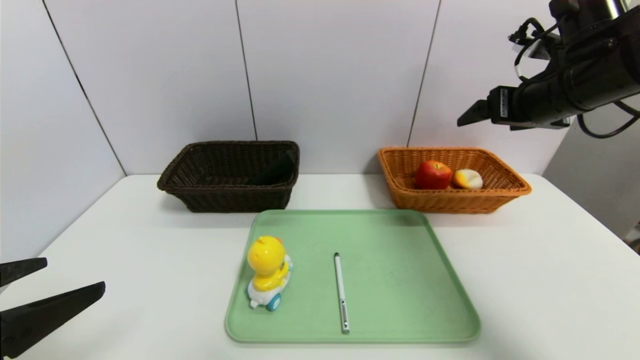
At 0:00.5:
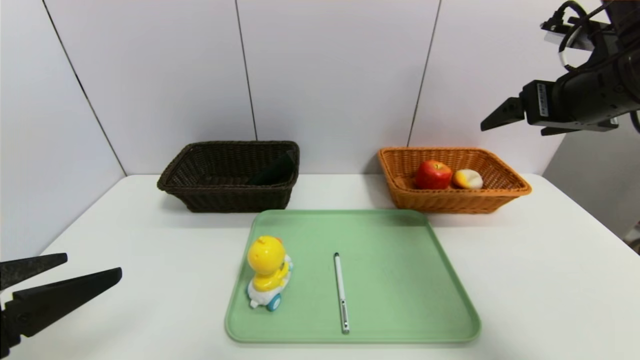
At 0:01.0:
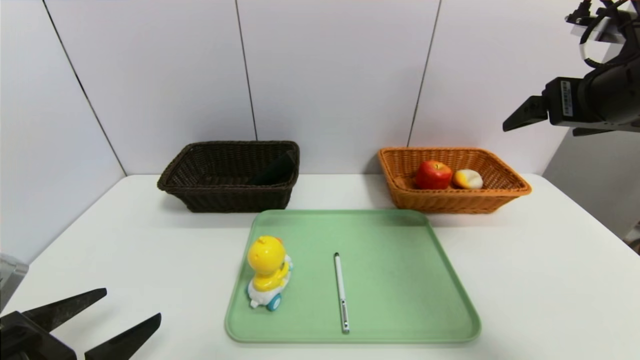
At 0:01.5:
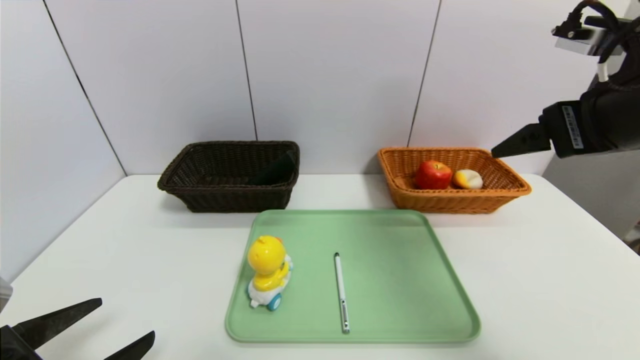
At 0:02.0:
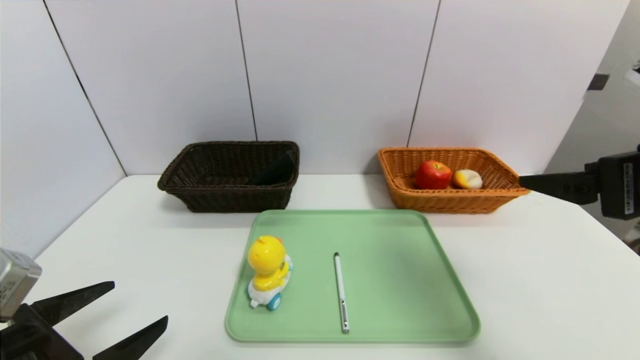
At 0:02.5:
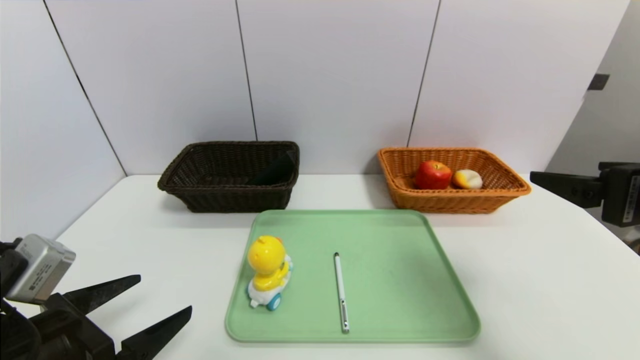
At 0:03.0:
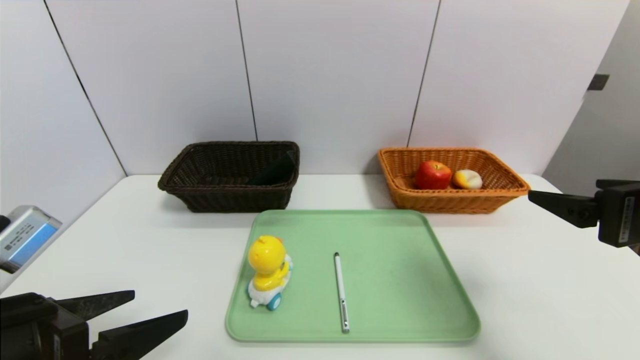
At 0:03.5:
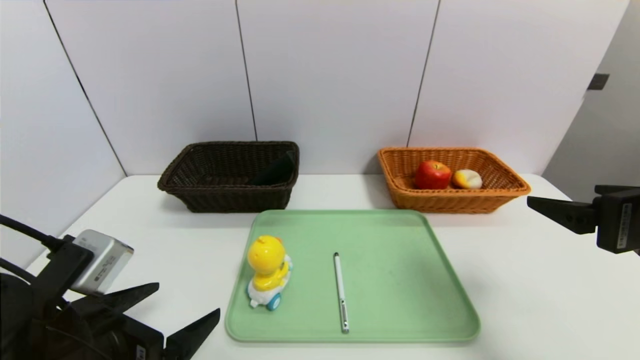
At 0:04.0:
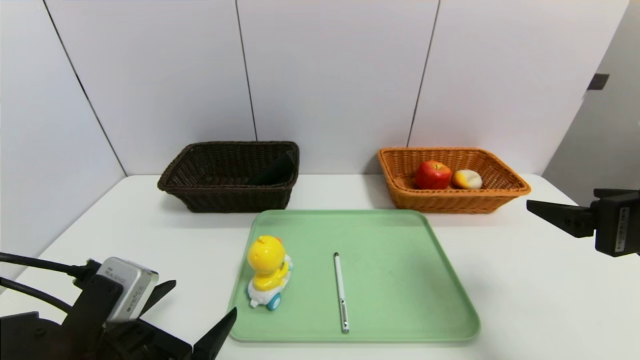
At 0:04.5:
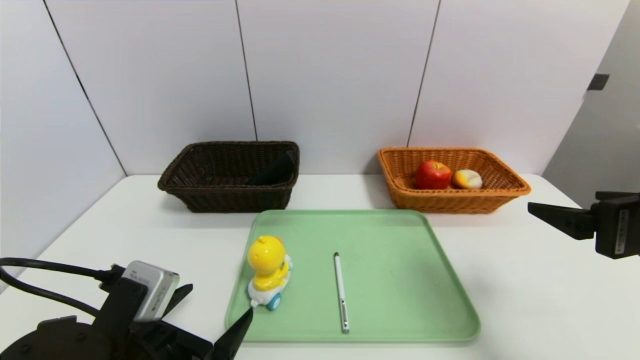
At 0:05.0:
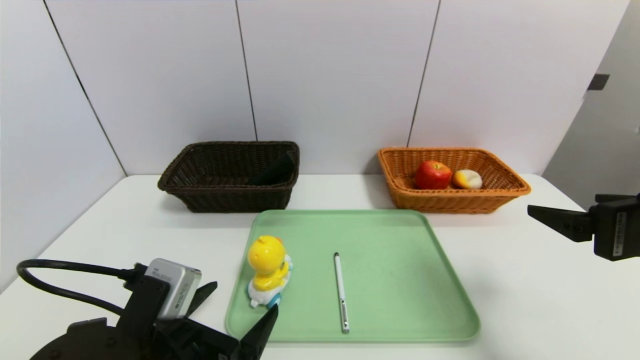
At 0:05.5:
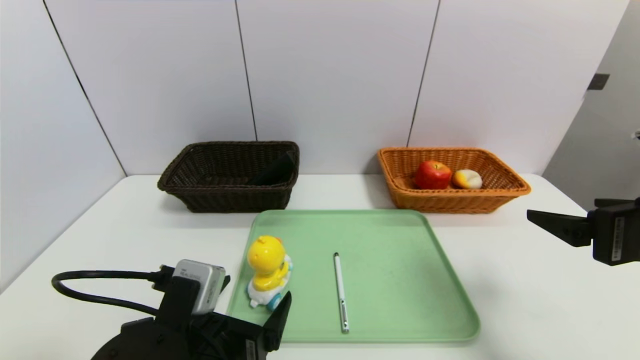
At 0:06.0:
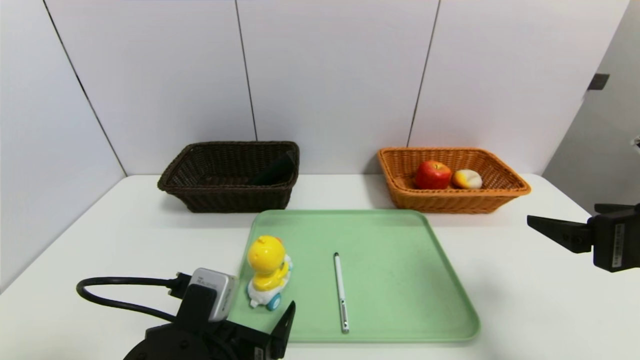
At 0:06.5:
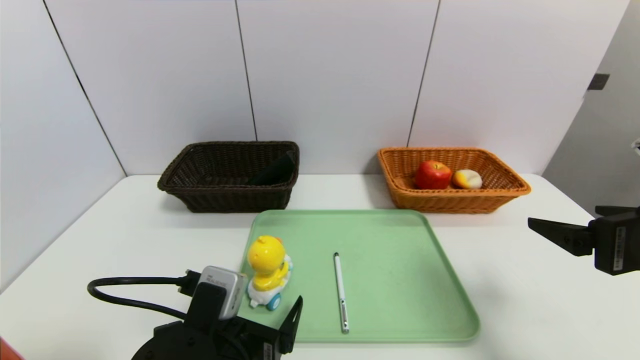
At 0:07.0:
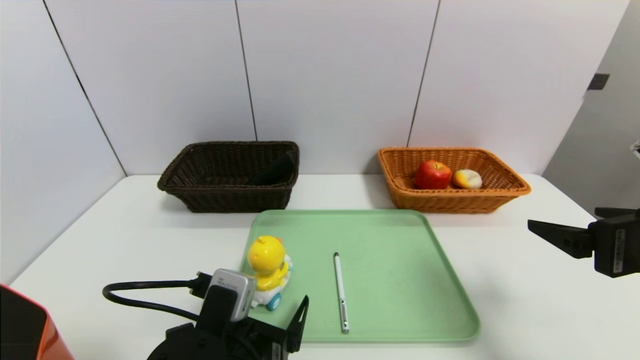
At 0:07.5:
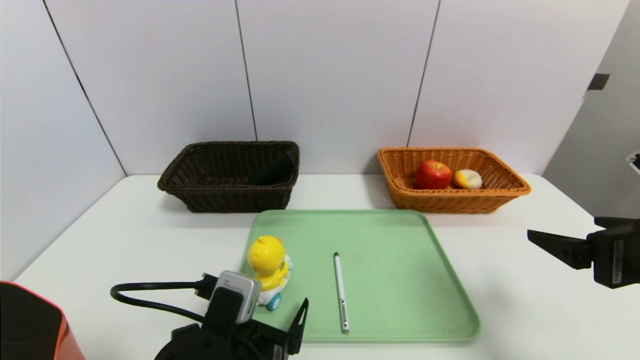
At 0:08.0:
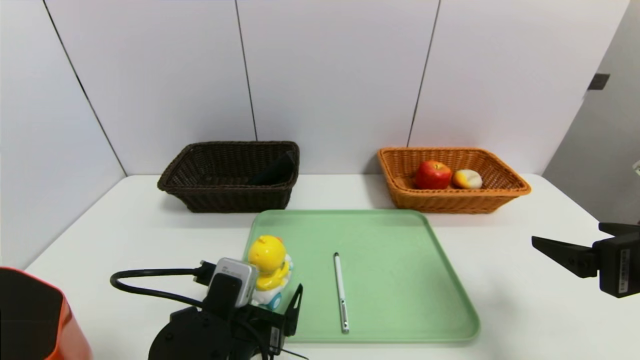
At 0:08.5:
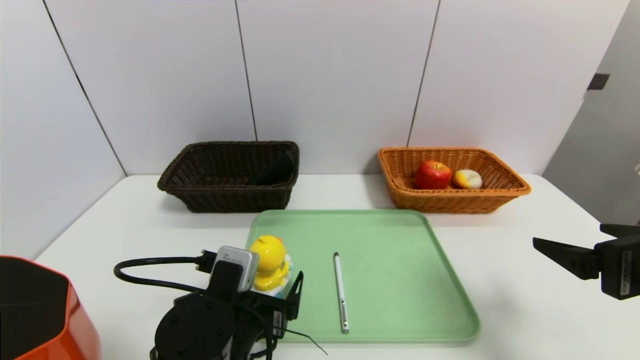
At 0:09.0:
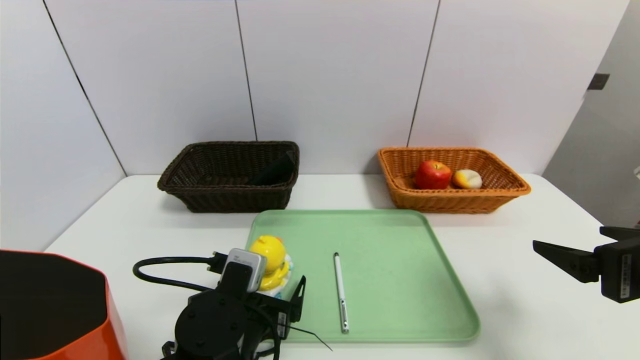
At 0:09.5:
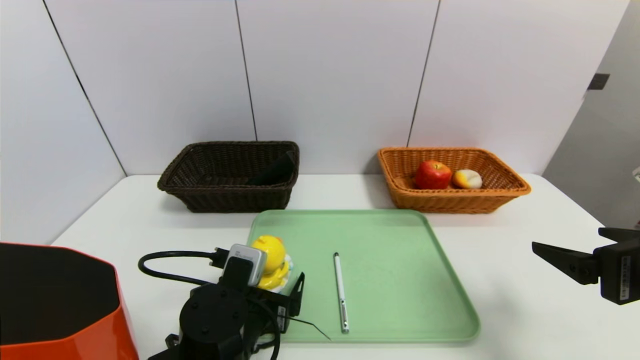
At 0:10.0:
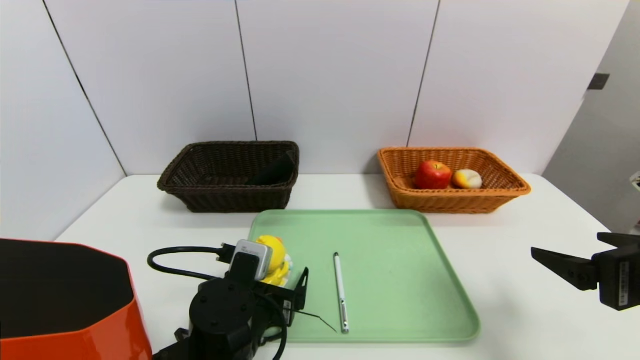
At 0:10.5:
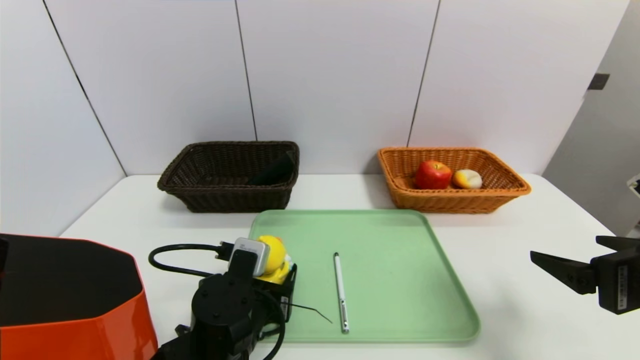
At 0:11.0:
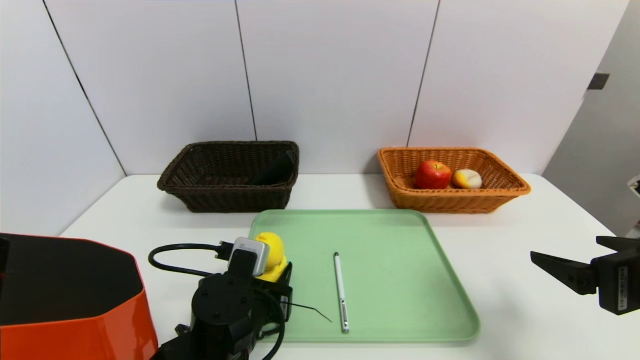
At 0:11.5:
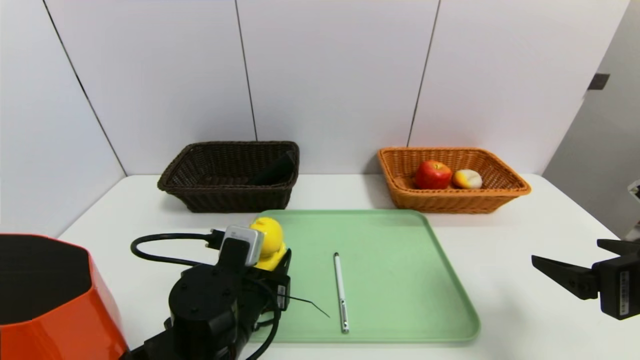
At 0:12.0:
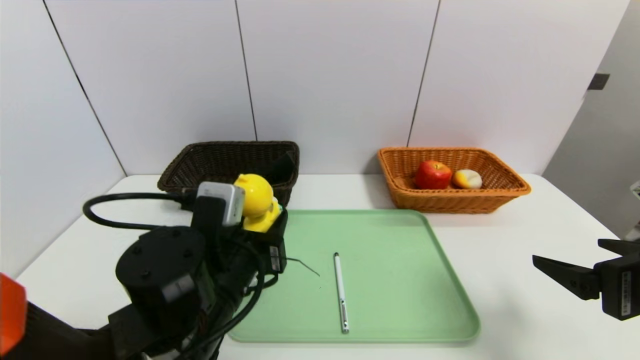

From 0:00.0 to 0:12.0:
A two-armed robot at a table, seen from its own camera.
Task of the whole recording: place the food in the right basket with the right gripper, and place the non food items in the left basket with the left gripper.
From 0:00.0 to 0:02.0: The right gripper moves backward, roughly 15 cm. Meanwhile the left gripper is displaced downward by roughly 10 cm.
From 0:02.0 to 0:04.0: The left gripper goes some 5 cm to the right.
From 0:04.0 to 0:06.0: The left gripper is displaced to the right by some 5 cm.
From 0:06.0 to 0:08.0: The grippers move only a little.
From 0:08.0 to 0:10.0: The grippers make only small movements.
From 0:10.0 to 0:12.0: The left gripper is displaced upward by roughly 10 cm, and closes.

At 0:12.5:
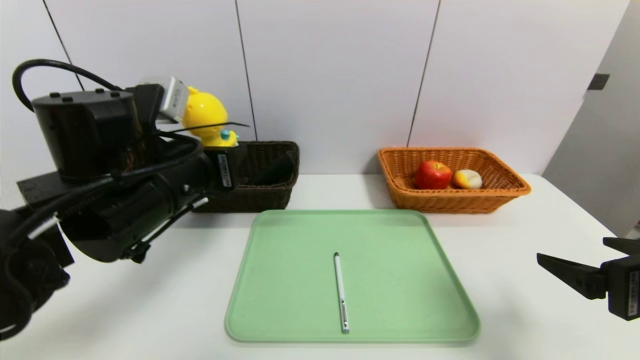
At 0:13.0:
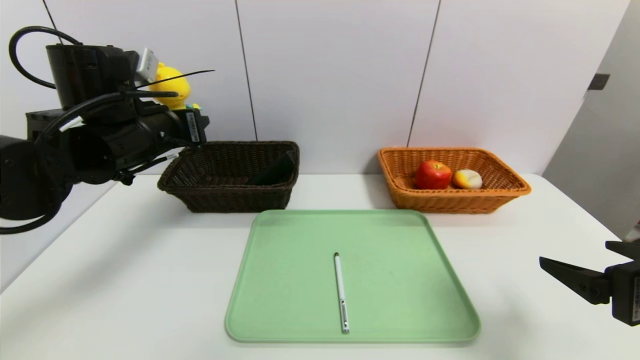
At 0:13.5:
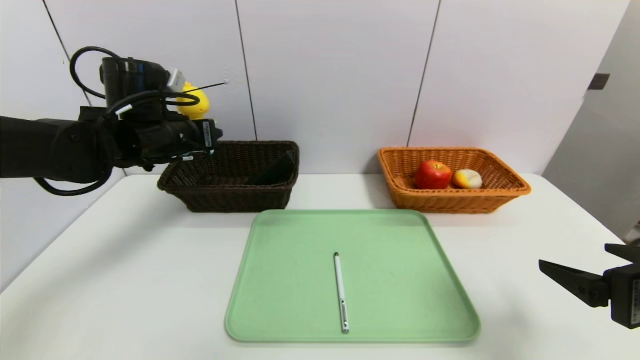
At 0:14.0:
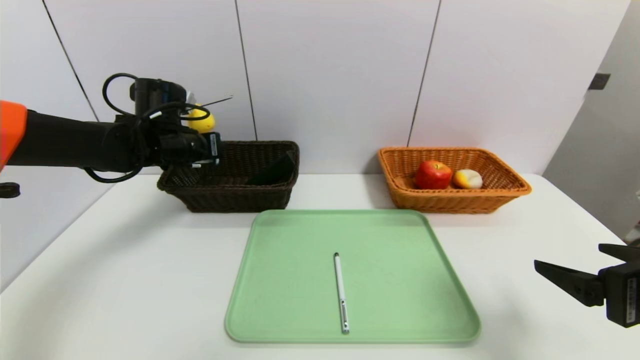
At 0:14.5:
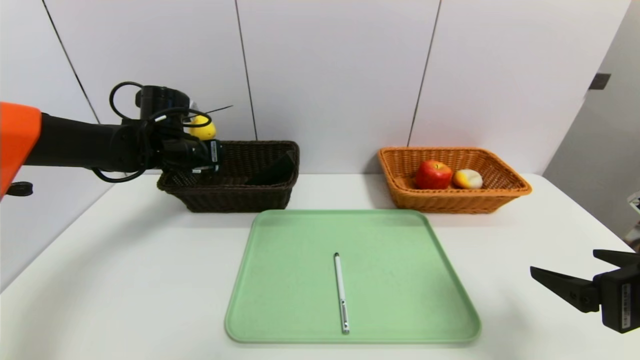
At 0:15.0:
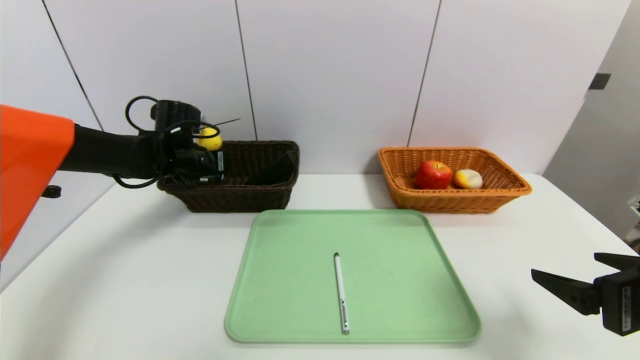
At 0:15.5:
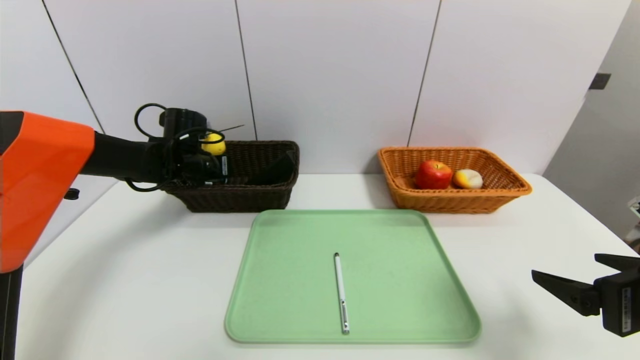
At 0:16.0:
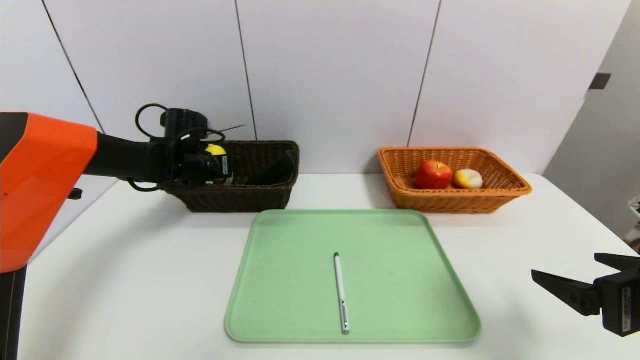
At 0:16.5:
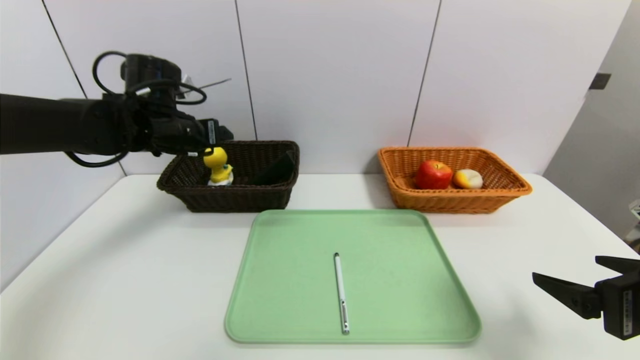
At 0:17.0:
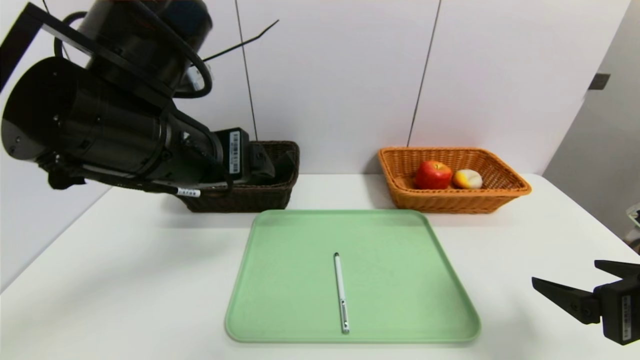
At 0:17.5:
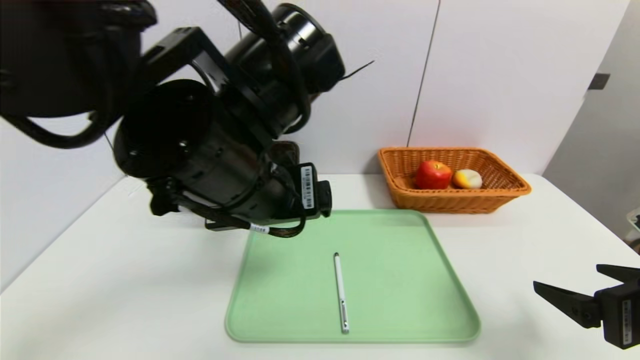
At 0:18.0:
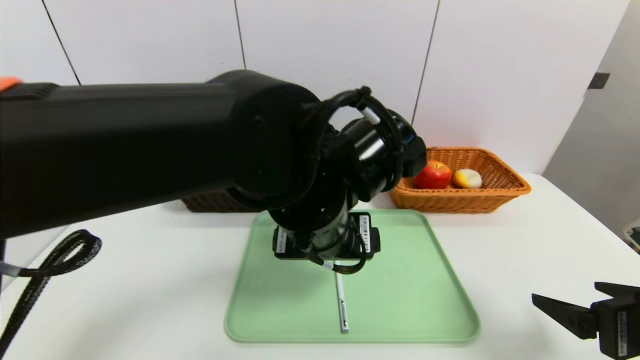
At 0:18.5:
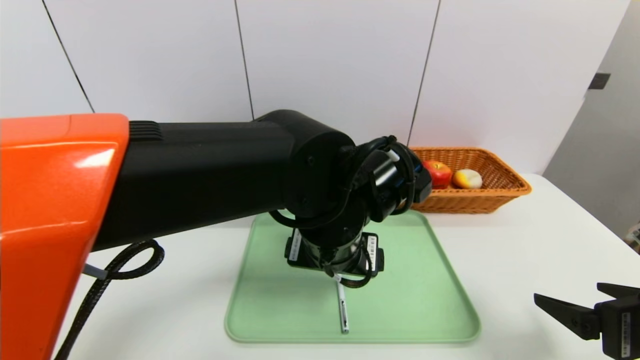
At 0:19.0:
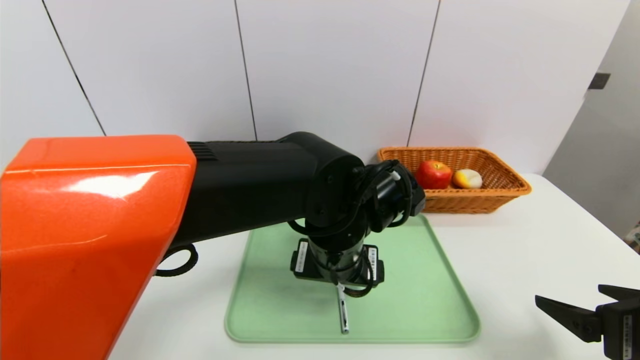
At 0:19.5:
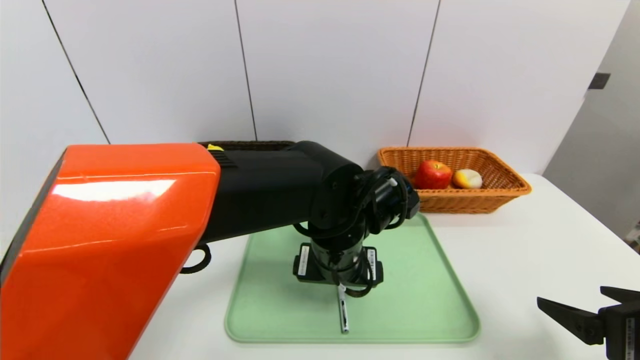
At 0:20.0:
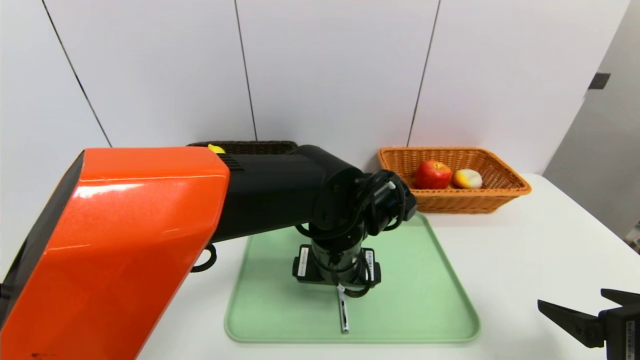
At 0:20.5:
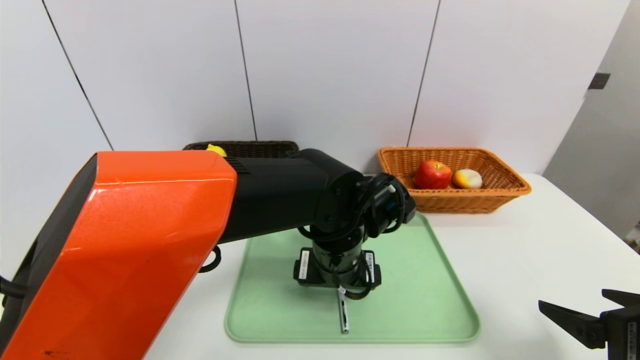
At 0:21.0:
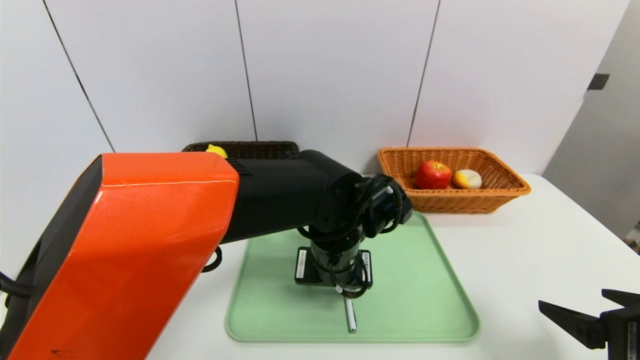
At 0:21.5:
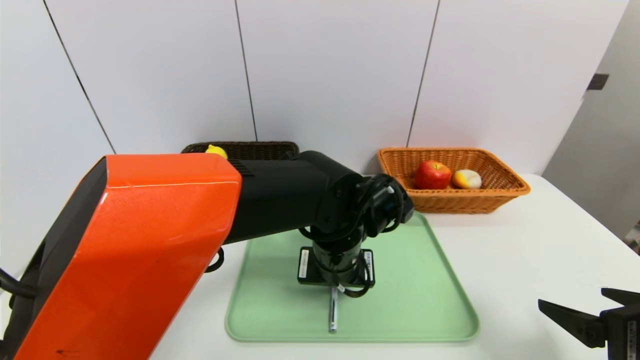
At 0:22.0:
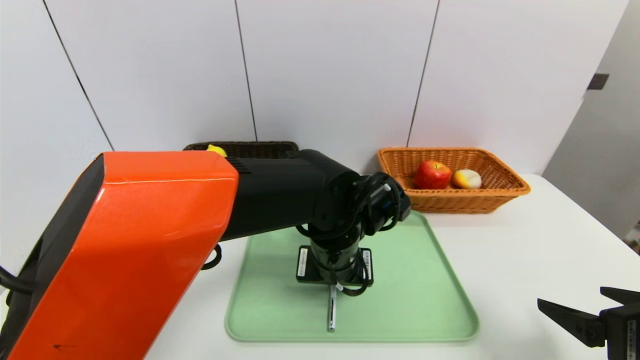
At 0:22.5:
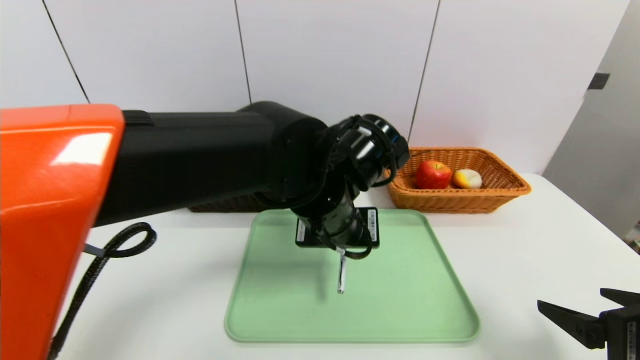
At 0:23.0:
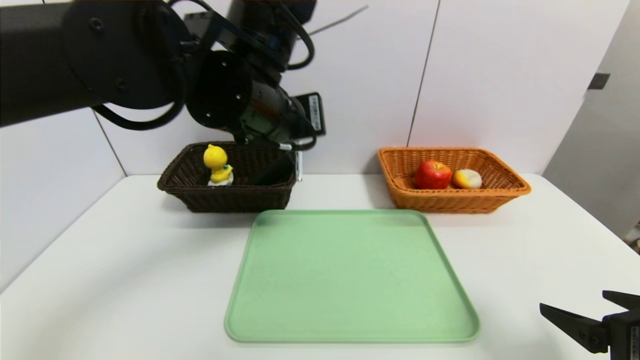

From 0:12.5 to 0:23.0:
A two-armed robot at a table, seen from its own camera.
Task of the whole recording: place the food in the right basket with the right gripper, and place the non food items in the left basket with the left gripper.
Step, from 0:12.5 to 0:16.5: Grasp the duck toys and put it in the left basket.
From 0:12.5 to 0:14.5: The left gripper goes approximately 20 cm forward and to the left.
From 0:14.5 to 0:16.5: The left gripper moves upward, roughly 5 cm, and opens its fingers.
From 0:16.5 to 0:19.0: The left gripper moves to the right and backward, about 30 cm.
From 0:19.0 to 0:21.0: The grippers make only small movements.
From 0:21.0 to 0:23.0: The left gripper shifts some 20 cm upward and to the left, and closes up.
